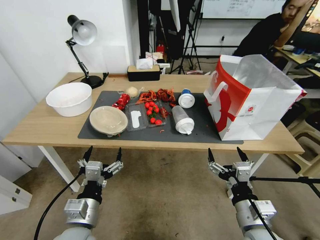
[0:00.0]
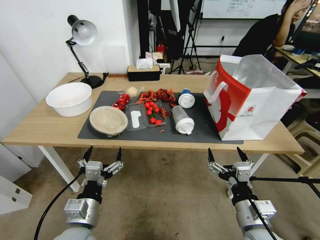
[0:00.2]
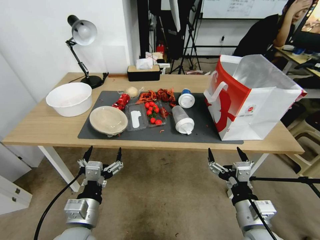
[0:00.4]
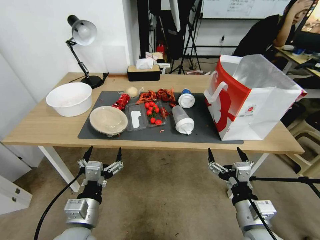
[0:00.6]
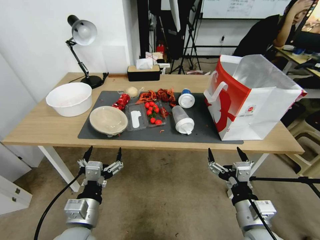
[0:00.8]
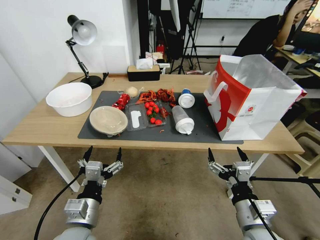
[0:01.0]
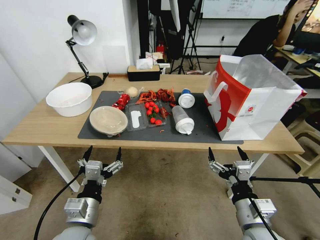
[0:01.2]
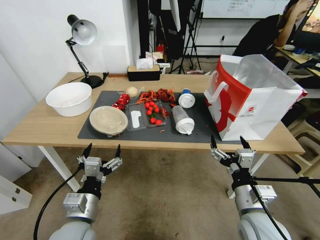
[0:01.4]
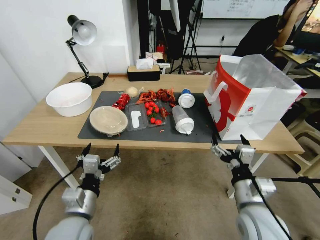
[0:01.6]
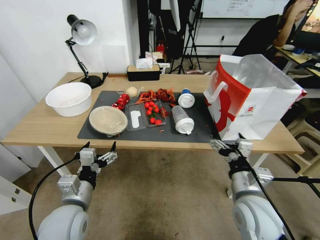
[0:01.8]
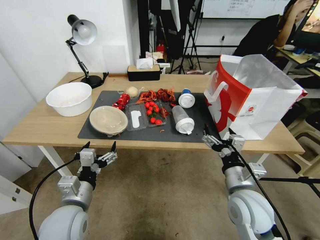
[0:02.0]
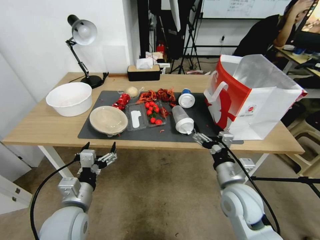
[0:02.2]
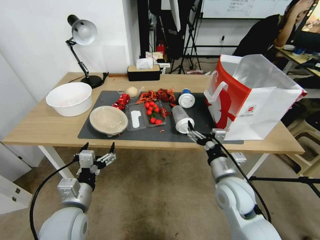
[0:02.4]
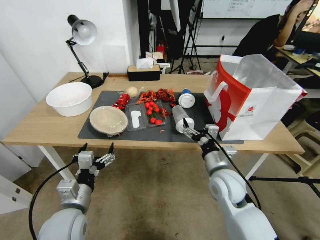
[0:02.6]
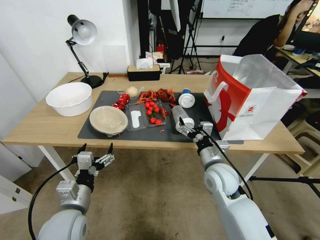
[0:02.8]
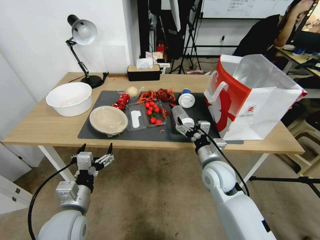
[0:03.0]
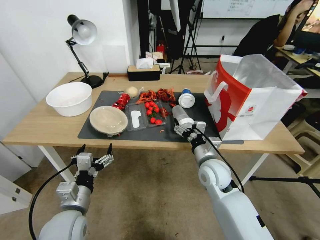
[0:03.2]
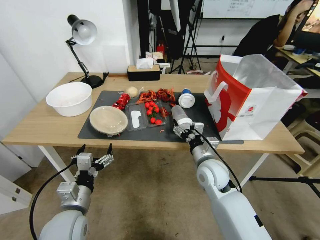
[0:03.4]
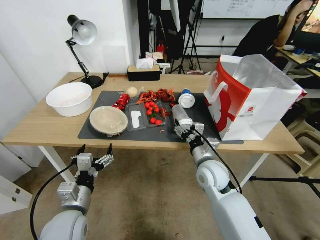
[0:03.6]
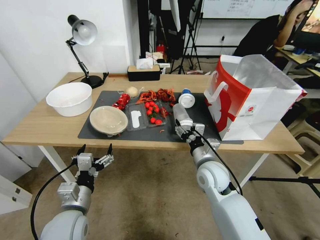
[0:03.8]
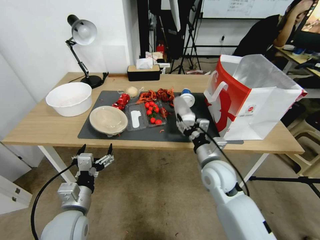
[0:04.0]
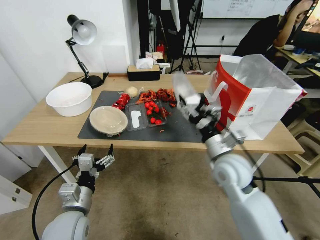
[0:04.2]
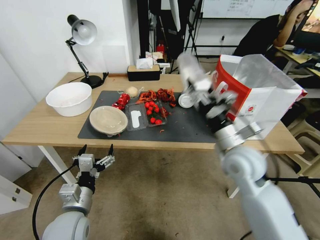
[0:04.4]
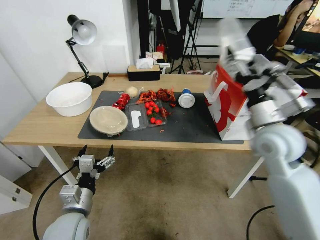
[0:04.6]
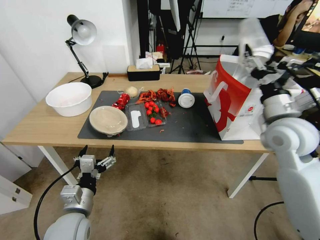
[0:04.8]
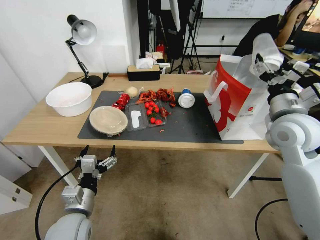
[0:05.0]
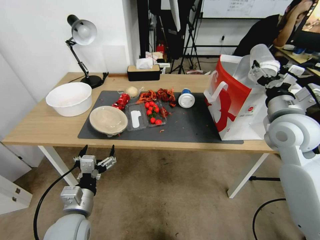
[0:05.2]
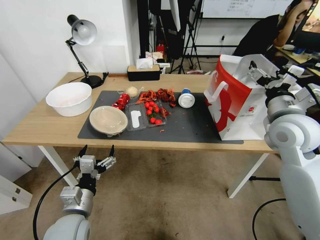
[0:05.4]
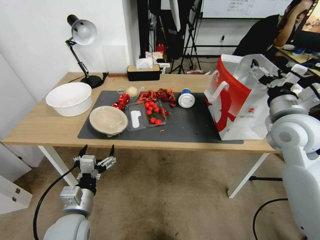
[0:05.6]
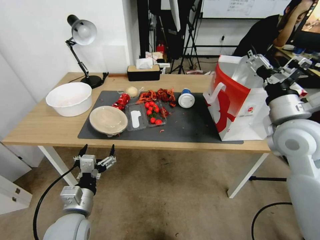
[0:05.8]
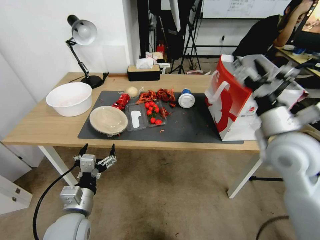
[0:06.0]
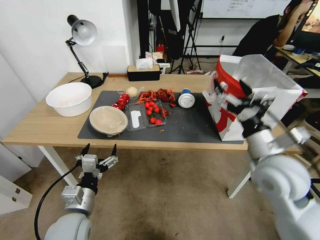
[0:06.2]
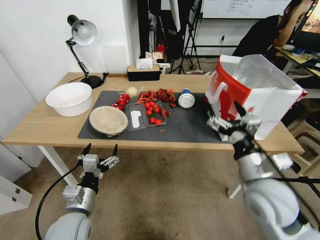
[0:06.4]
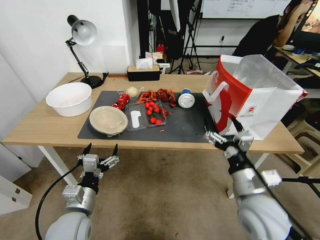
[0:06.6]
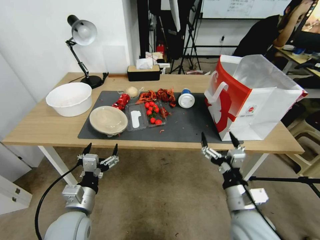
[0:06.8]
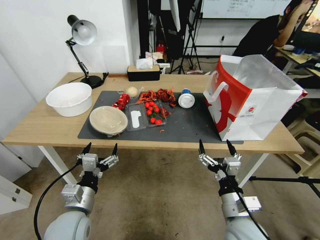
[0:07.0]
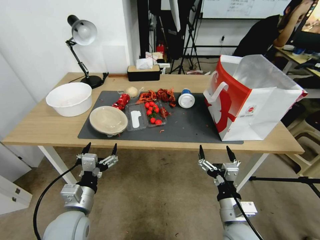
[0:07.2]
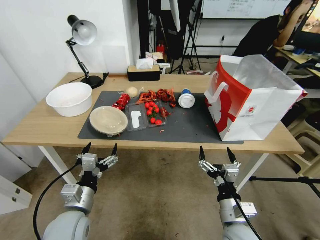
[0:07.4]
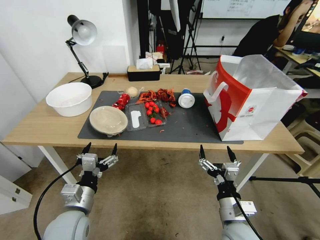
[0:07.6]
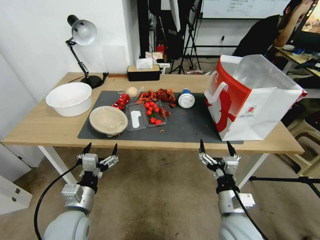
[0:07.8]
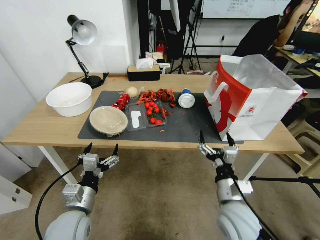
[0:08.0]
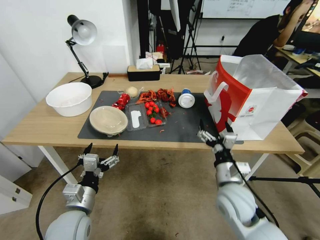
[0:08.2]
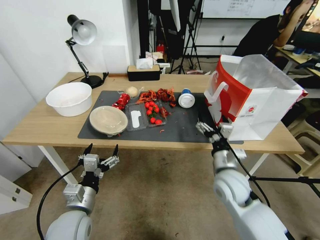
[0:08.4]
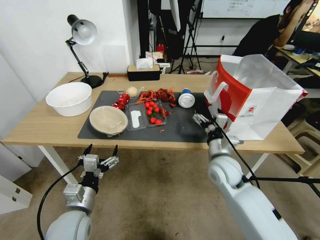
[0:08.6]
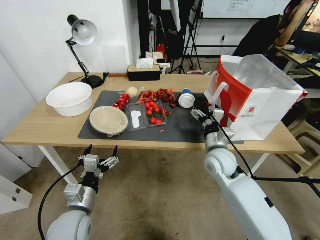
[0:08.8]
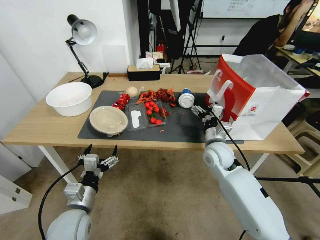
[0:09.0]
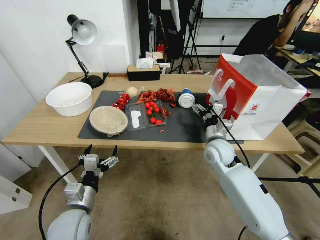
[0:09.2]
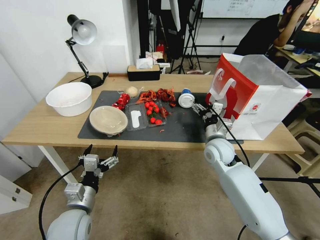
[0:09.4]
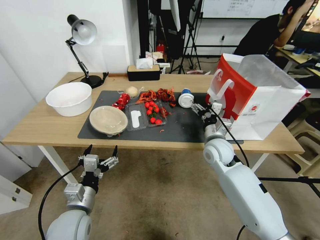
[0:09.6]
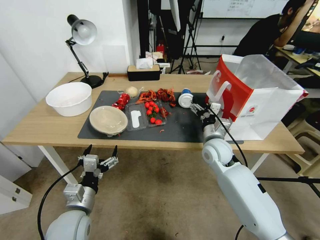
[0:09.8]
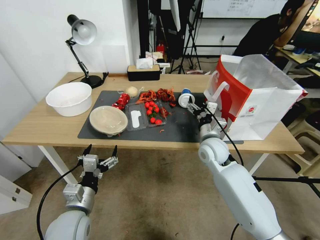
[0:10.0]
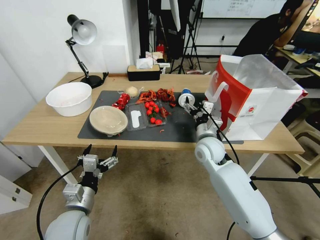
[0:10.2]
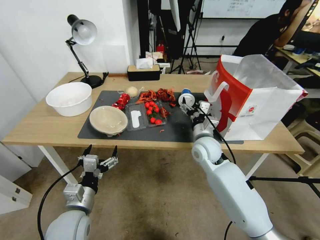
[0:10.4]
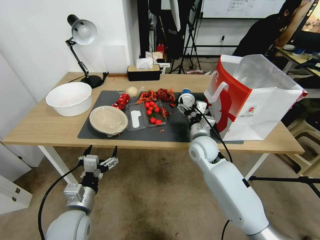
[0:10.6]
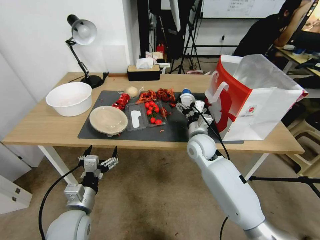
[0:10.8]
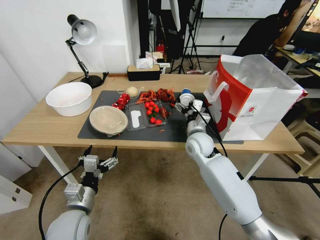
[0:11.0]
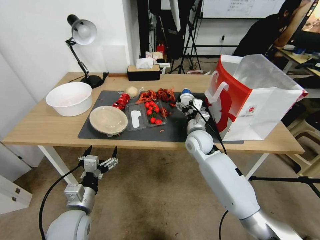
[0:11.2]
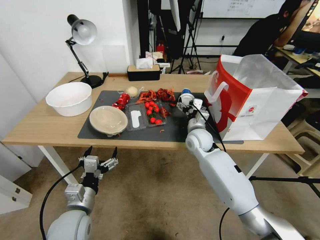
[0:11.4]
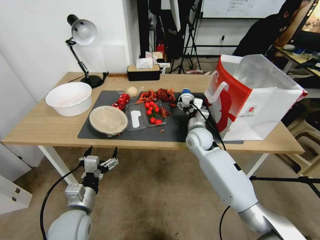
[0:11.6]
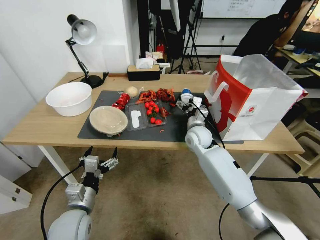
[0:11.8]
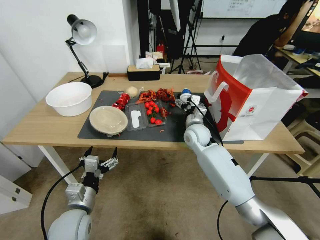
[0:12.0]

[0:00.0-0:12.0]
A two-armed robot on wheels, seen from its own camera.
0:01.6 to 0:03.0: The right gripper shifts roughly 15 cm forward.
0:03.0 to 0:04.4: The right gripper is displaced upward by approximately 10 cm, and closes up.
0:04.4 to 0:06.0: The right gripper shifts about 10 cm upward and to the right, and opens up.
0:06.0 to 0:07.6: The right gripper shifts about 30 cm downward, backward and to the left.
0:07.6 to 0:09.0: The right gripper heads forward, covering roughly 20 cm.
0:09.0 to 0:10.4: The right gripper heads forward, covering roughly 5 cm.
0:10.4 to 0:12.0: The right gripper travels forward by roughly 5 cm.

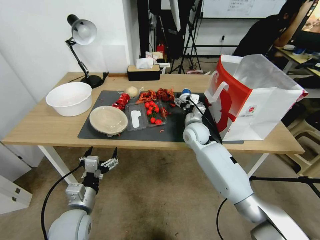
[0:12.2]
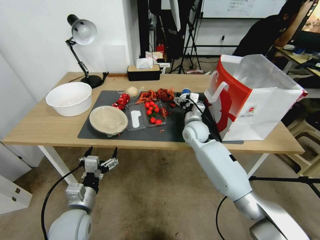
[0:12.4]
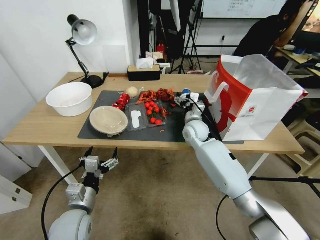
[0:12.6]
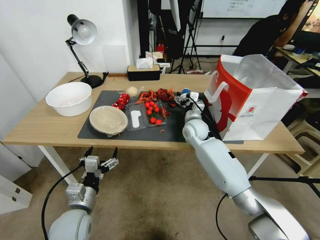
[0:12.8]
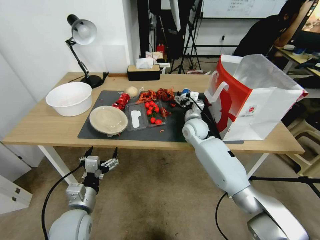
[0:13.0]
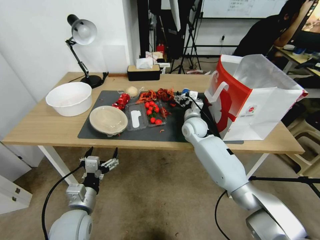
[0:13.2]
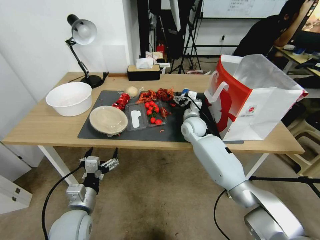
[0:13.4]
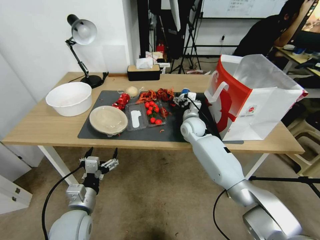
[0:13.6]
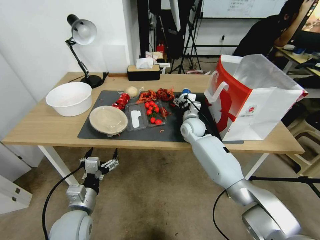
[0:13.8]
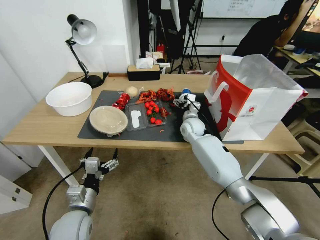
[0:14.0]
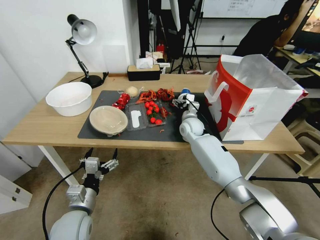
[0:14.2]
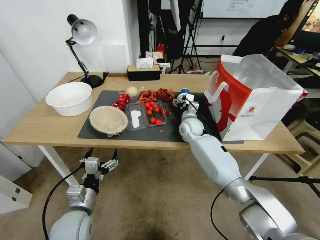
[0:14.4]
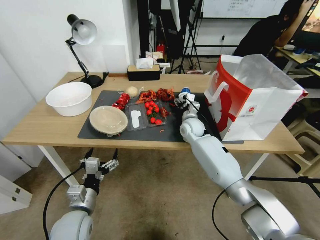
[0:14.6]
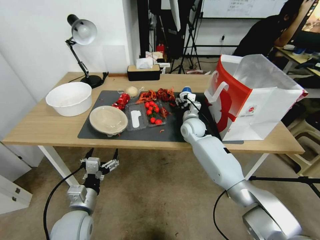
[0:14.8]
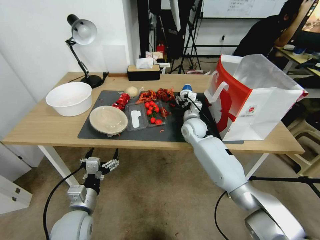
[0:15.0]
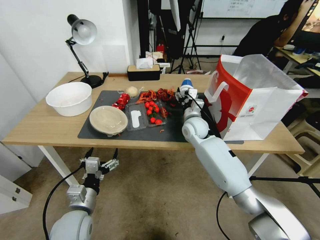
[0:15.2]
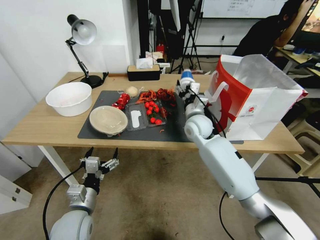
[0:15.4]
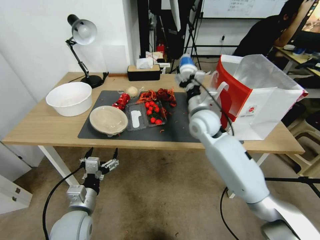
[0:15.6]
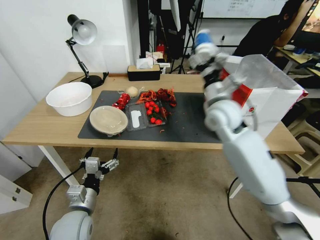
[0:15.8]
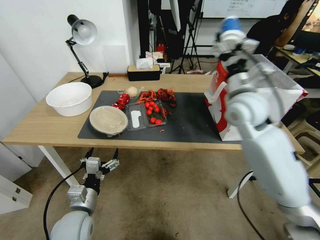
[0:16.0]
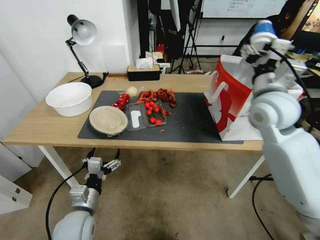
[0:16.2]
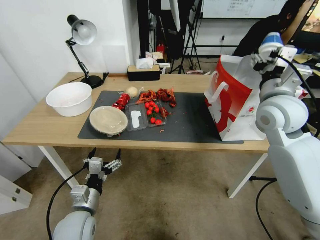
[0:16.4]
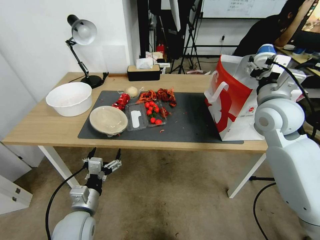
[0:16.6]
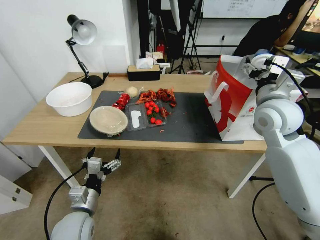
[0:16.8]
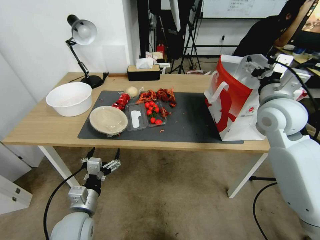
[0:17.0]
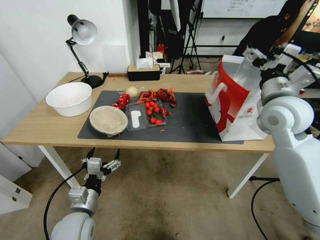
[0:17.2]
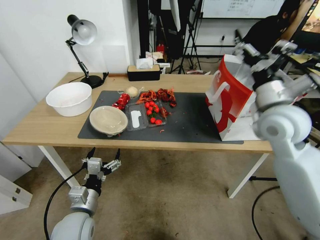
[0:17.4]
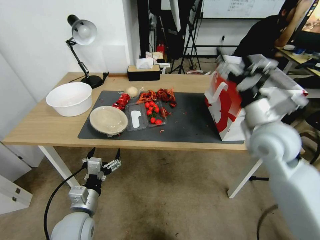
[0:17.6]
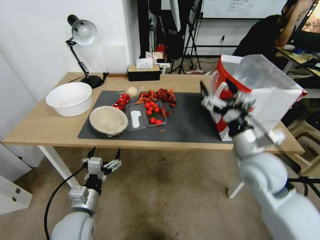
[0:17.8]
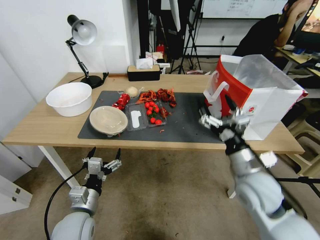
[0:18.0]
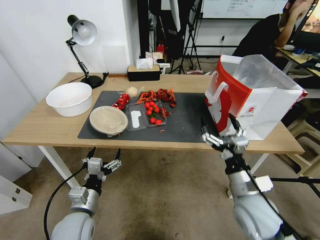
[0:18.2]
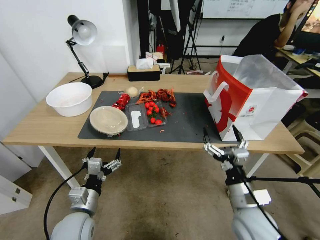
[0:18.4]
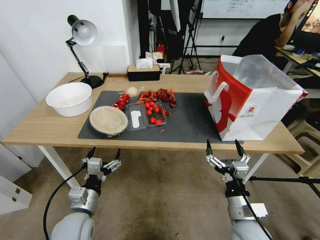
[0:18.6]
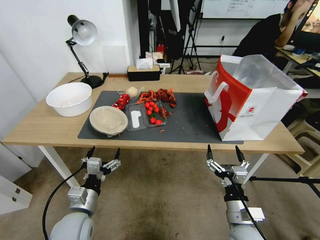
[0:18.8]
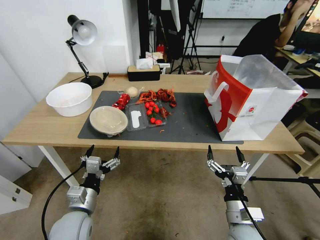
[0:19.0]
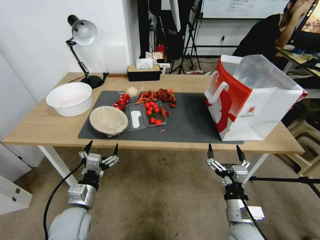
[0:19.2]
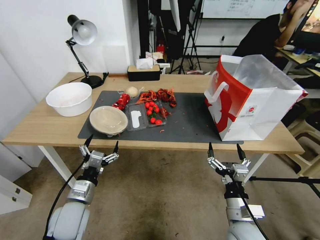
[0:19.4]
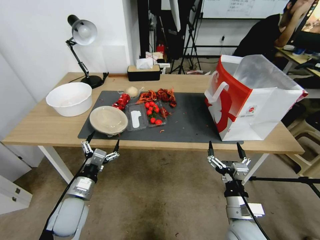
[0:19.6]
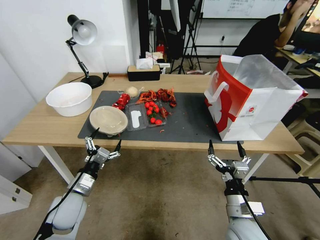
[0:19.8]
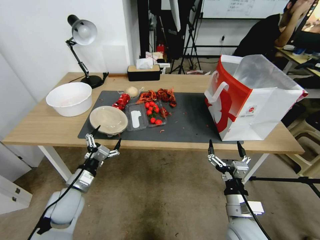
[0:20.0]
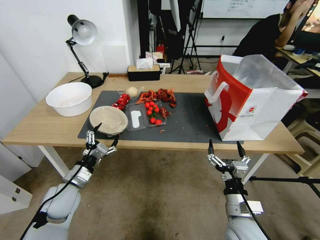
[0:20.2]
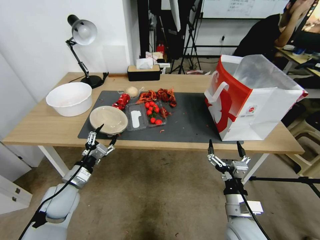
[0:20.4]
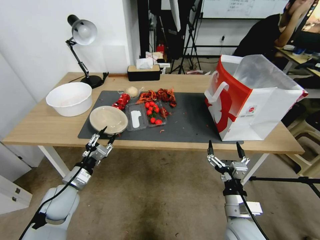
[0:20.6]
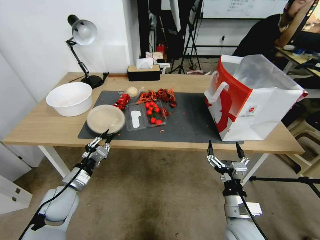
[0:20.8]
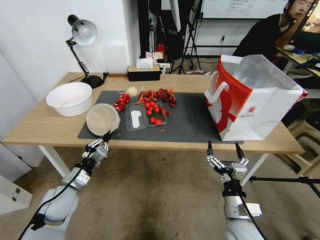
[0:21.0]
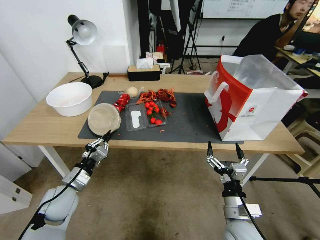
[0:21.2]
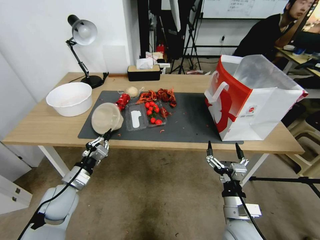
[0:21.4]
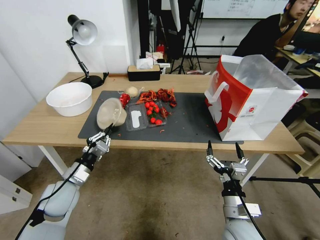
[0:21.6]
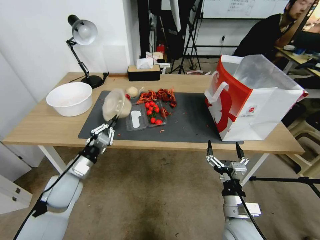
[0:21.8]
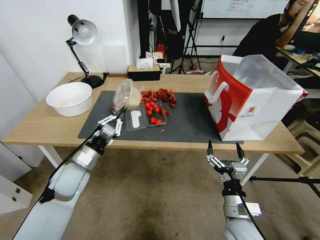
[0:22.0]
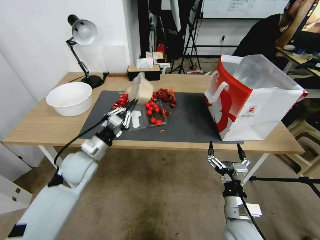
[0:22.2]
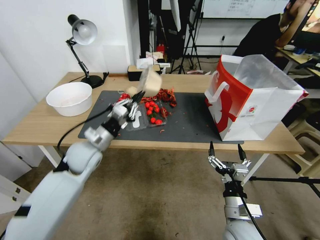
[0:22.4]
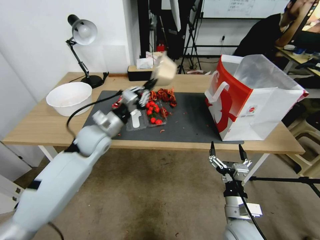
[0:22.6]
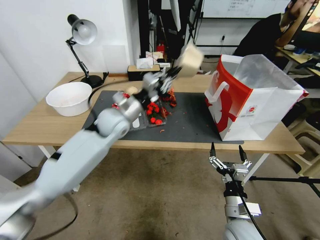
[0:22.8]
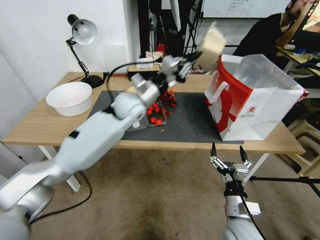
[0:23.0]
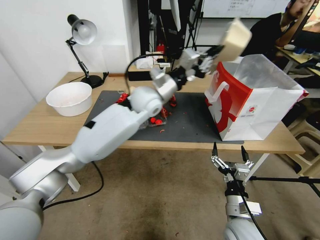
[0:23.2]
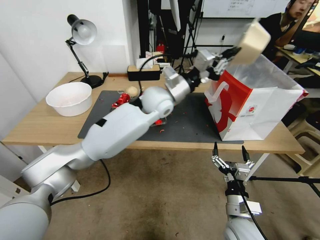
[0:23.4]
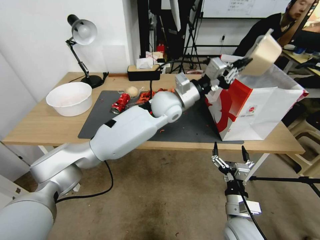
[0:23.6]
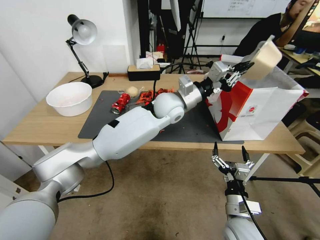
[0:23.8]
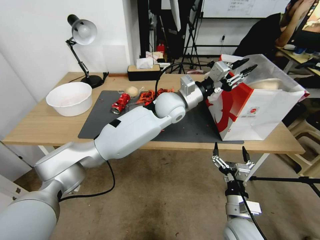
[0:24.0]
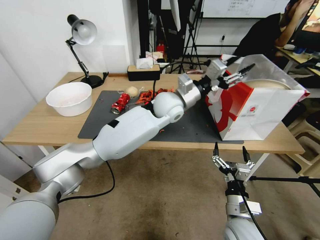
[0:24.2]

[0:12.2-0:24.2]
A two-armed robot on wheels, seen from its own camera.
0:12.2 to 0:13.8: The right gripper goes approximately 5 cm forward.
0:13.8 to 0:15.2: The right gripper closes.
0:15.2 to 0:16.6: The right gripper shifts some 25 cm upward, to the right and backward.
0:16.6 to 0:18.2: The right gripper heads downward and backward, covering roughly 25 cm, and opens.
0:18.2 to 0:19.8: The left gripper is displaced forward by approximately 5 cm. Meanwhile the right gripper shifts some 10 cm downward.
0:19.8 to 0:21.2: The left gripper closes up.
0:21.2 to 0:22.6: The left gripper goes roughly 20 cm forward, upward and to the right.
0:22.6 to 0:24.2: The left gripper moves to the right, some 25 cm, and opens its fingers.
